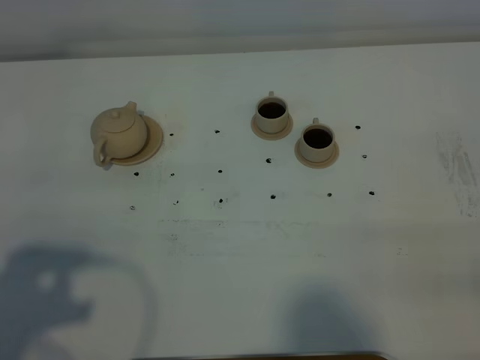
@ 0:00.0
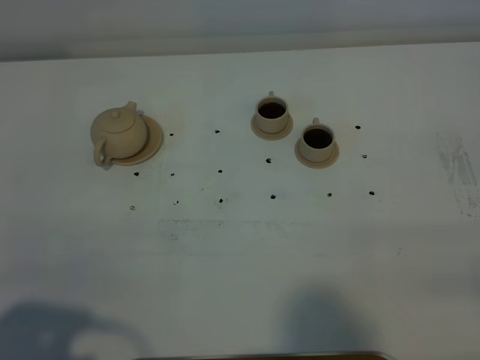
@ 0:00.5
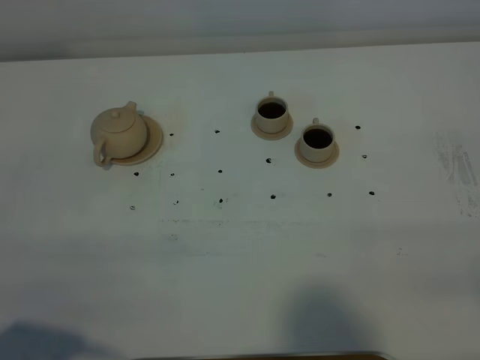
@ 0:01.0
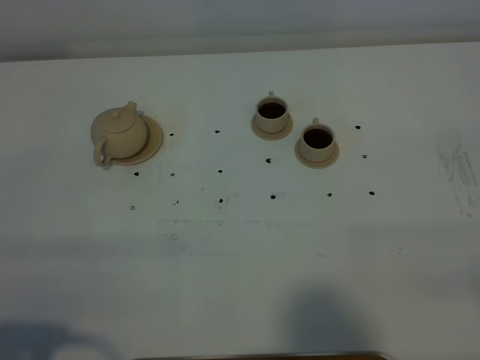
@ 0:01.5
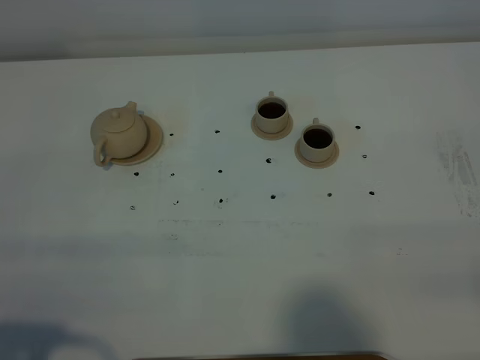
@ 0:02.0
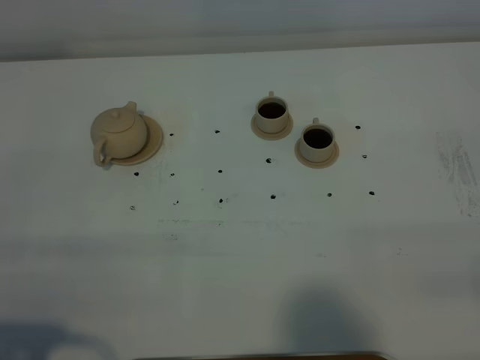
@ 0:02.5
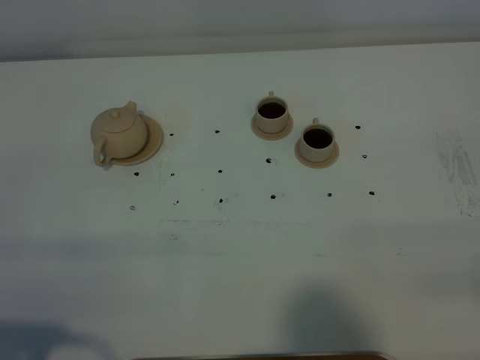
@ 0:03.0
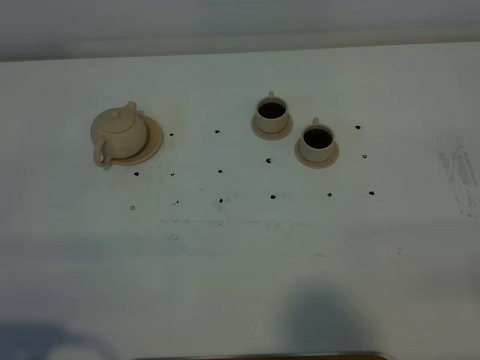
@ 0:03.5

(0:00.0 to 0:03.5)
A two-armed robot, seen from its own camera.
Task of the whole recording: grasp the brown teapot and pour the tea into the two brown teacups one by one, put the brown teapot back in its original place.
0:00.0 - 0:02.0: The left gripper travels backward and downward by about 10 cm.

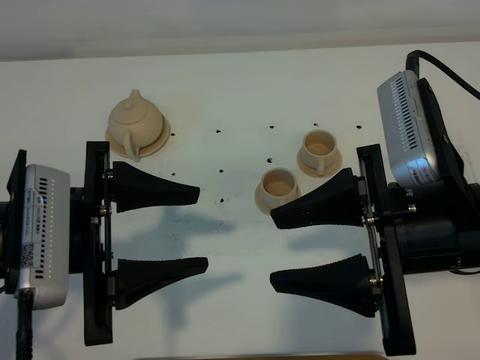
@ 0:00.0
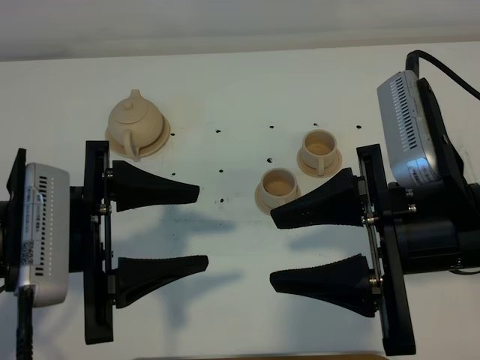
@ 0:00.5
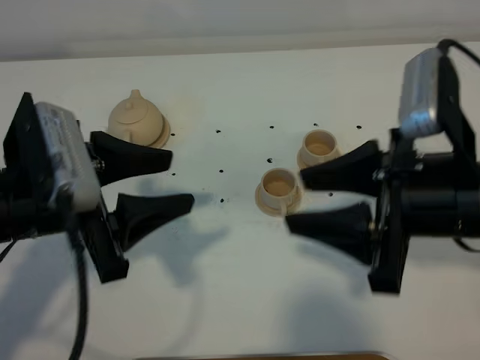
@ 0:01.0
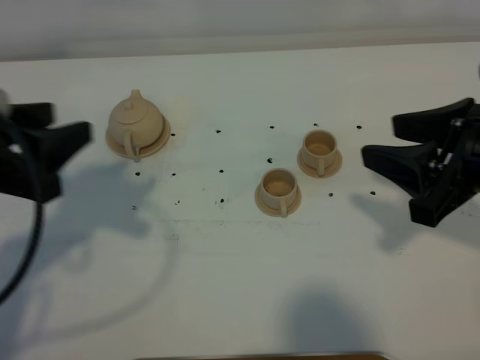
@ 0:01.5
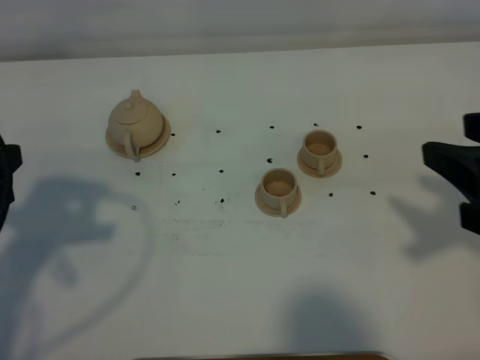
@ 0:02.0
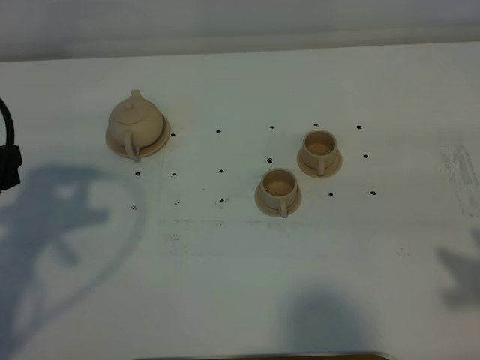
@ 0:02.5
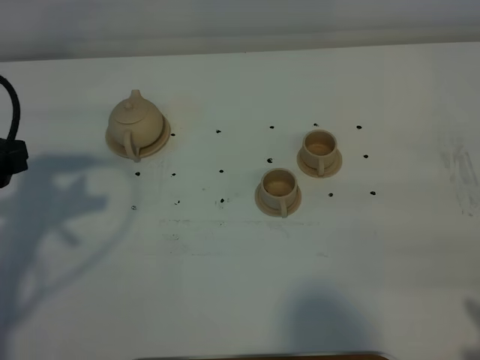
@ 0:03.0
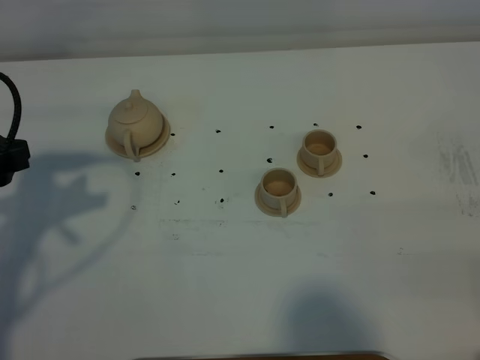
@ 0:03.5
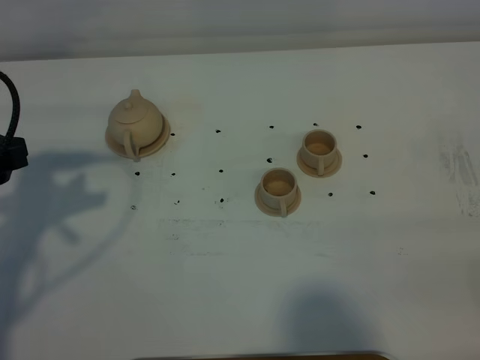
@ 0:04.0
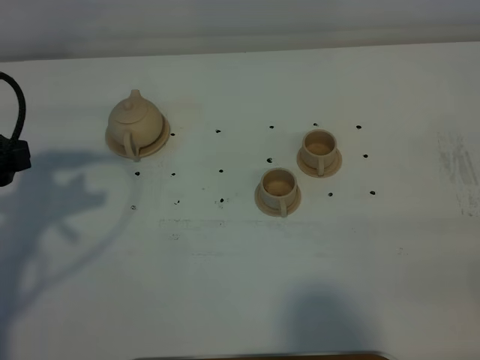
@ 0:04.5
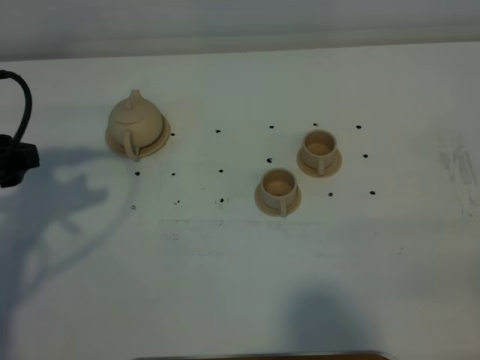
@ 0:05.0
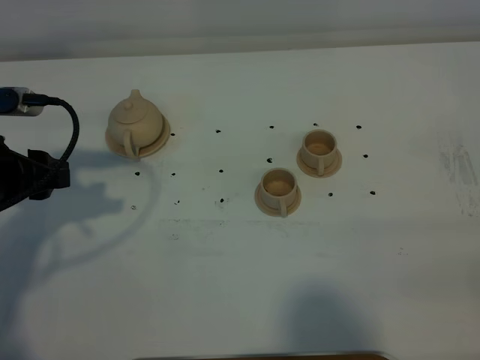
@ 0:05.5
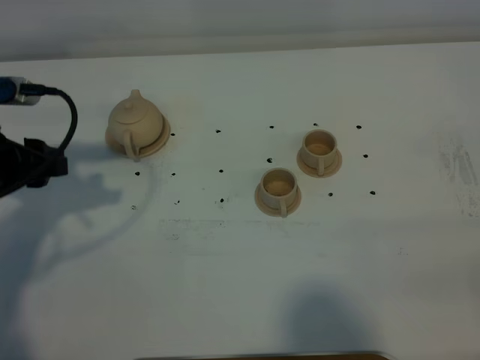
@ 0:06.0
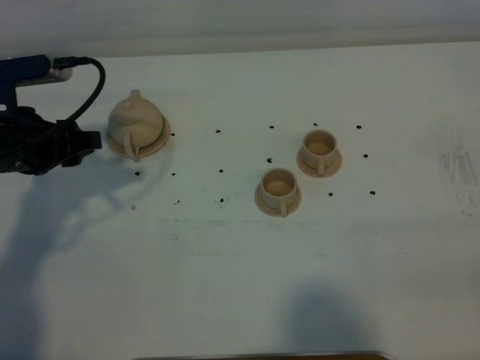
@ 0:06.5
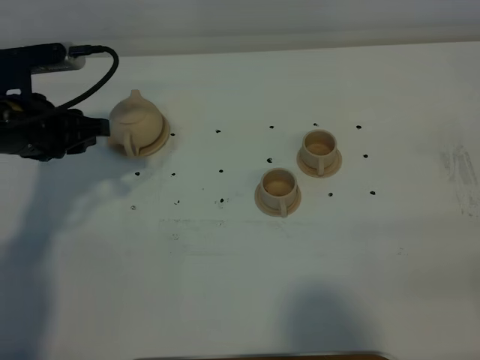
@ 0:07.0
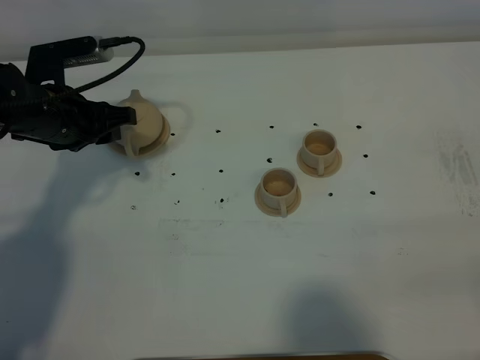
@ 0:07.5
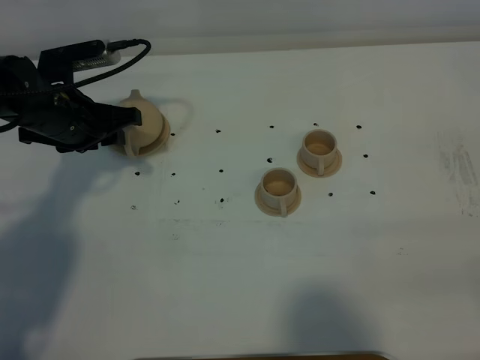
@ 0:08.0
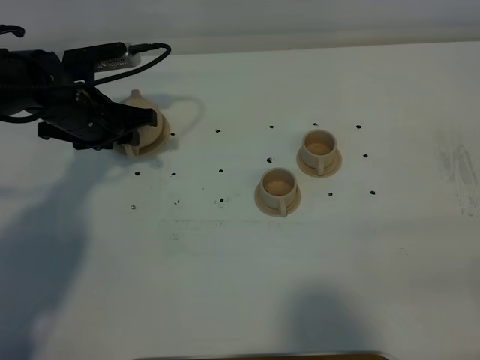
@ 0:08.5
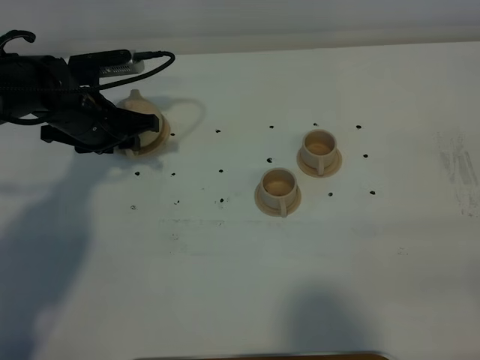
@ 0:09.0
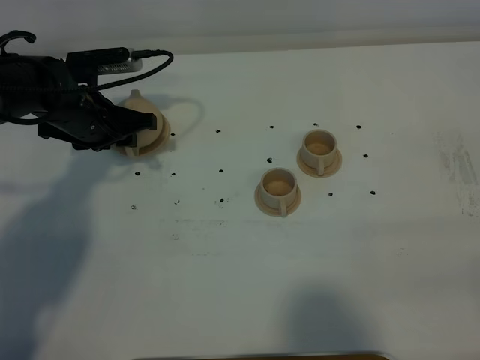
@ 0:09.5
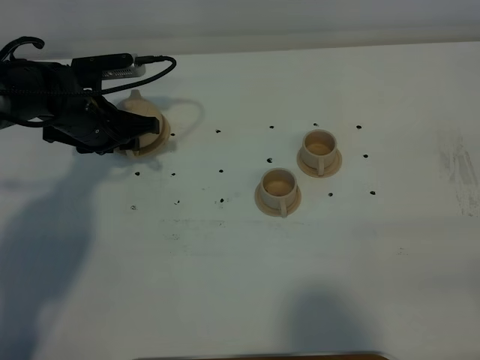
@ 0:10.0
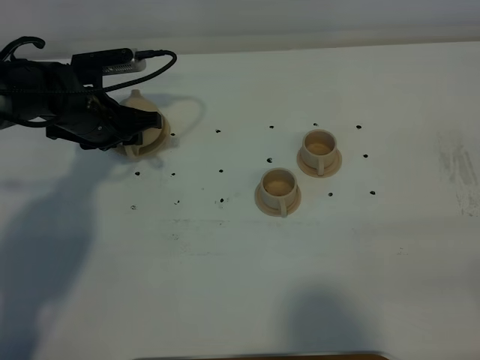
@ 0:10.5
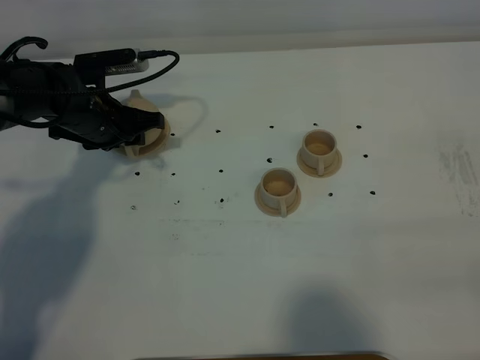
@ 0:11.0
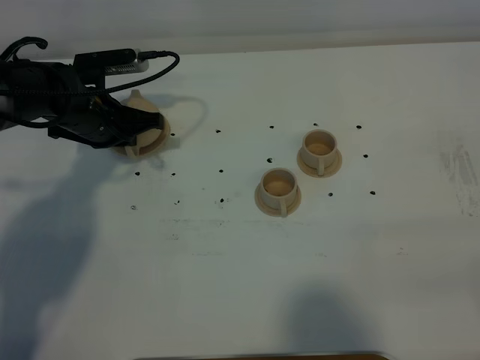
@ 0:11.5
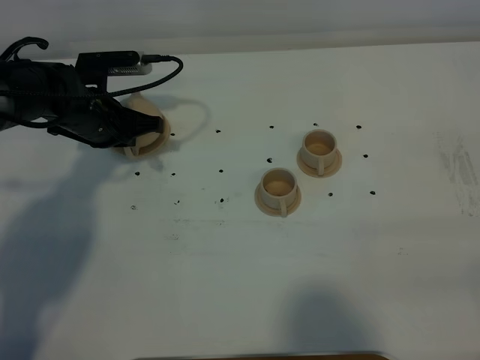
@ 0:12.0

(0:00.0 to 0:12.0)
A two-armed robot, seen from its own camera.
Task of the whole recording: grasp the brown teapot and pour the tea into the two brown teacups one by one, put the brown teapot back in its original place.
0:00.0 - 0:02.0: The right gripper travels to the right by roughly 10 cm. Meanwhile the left gripper is displaced to the left by about 10 cm.
0:02.0 - 0:04.0: The left gripper is displaced forward by about 5 cm. Meanwhile the right gripper heads backward, covering about 15 cm.
0:04.0 - 0:06.0: The left gripper moves about 5 cm.
0:06.0 - 0:08.0: The left gripper is displaced forward and to the right by some 15 cm.
0:08.0 - 0:10.0: The grippers stay close to where they were, moving slightly.
0:10.0 - 0:12.0: The left gripper closes.

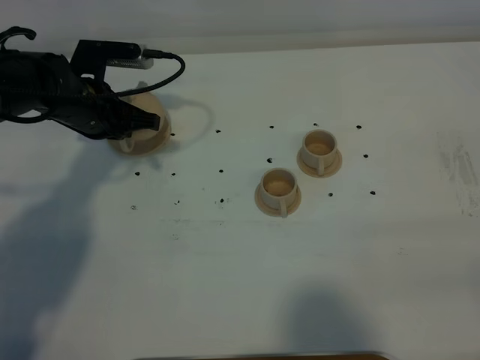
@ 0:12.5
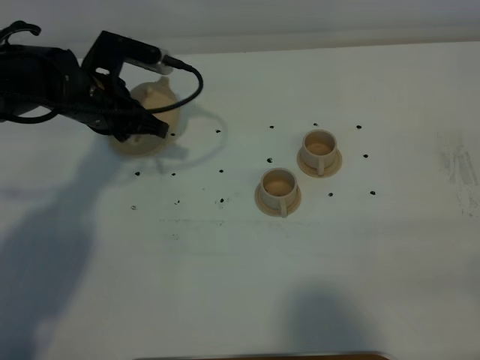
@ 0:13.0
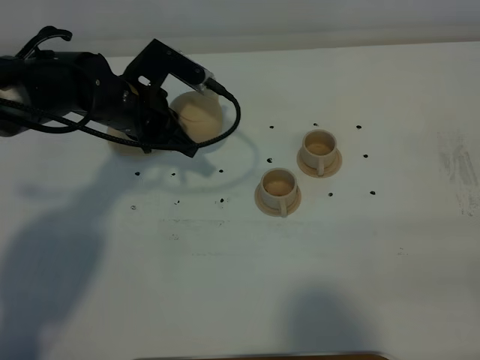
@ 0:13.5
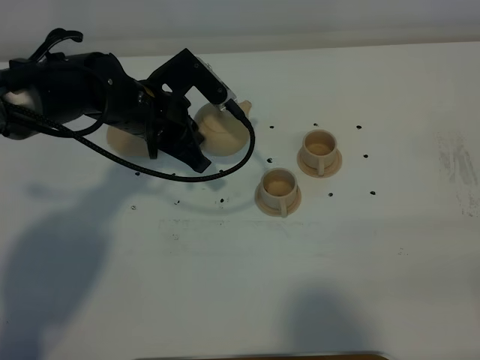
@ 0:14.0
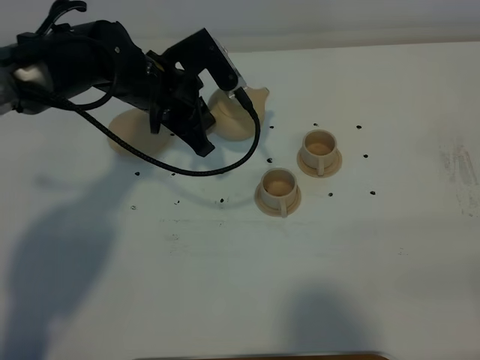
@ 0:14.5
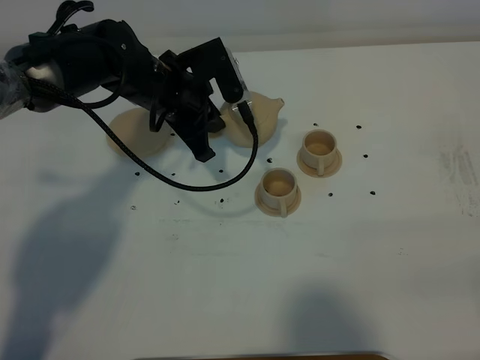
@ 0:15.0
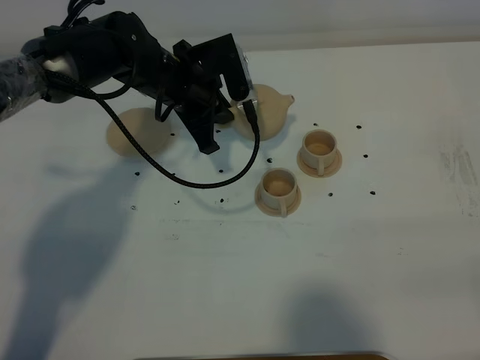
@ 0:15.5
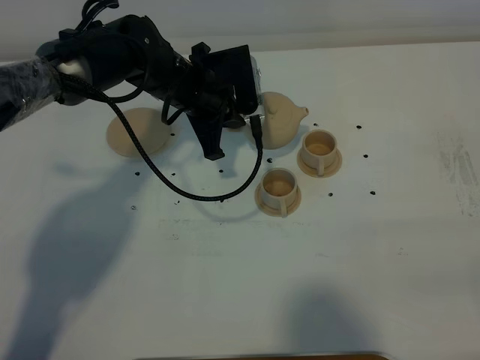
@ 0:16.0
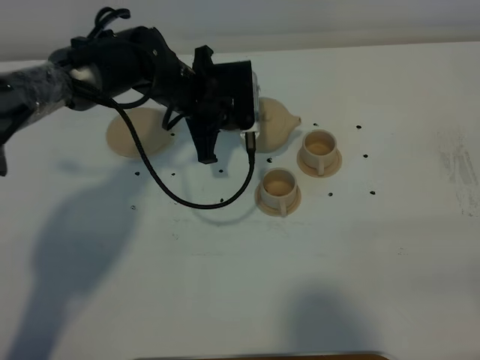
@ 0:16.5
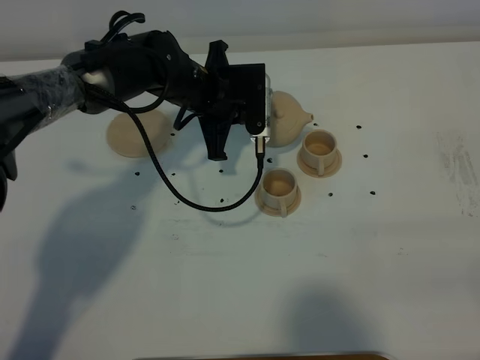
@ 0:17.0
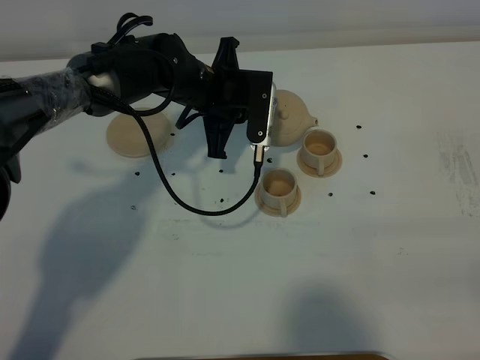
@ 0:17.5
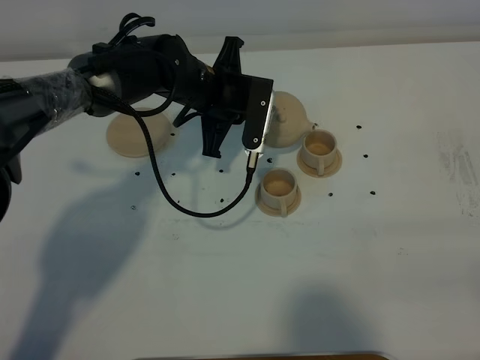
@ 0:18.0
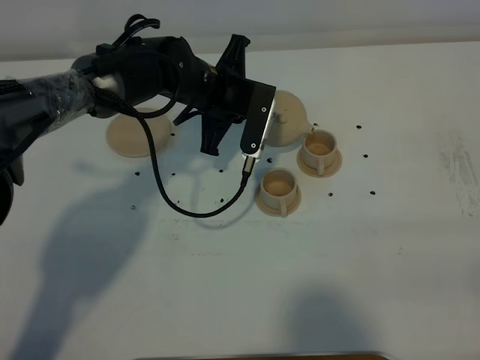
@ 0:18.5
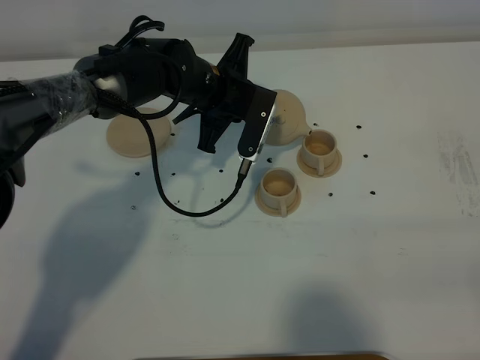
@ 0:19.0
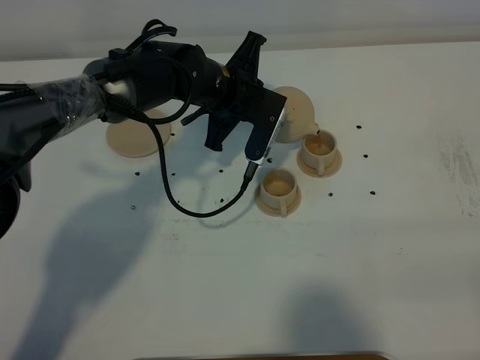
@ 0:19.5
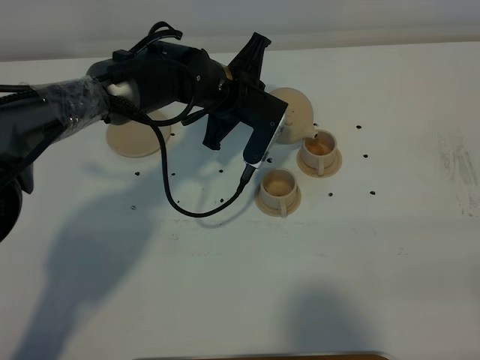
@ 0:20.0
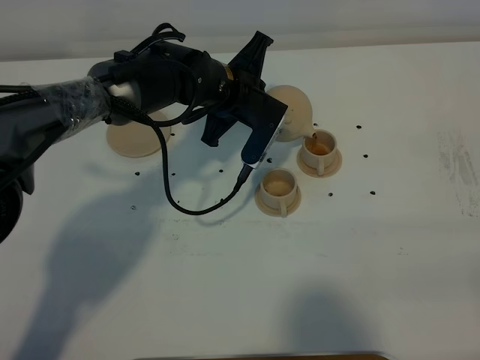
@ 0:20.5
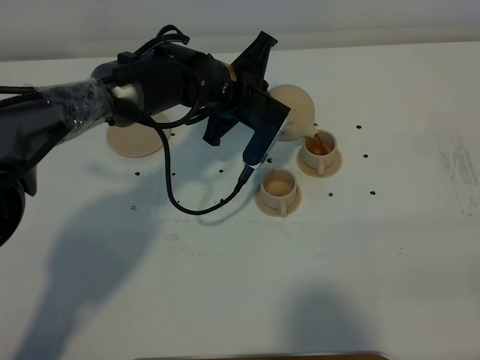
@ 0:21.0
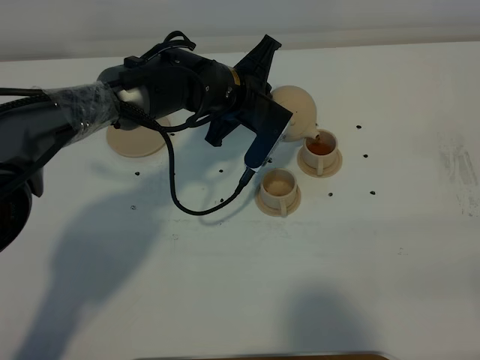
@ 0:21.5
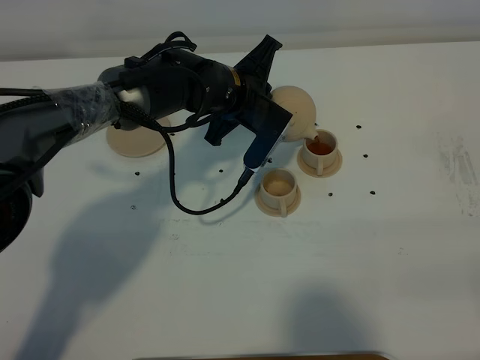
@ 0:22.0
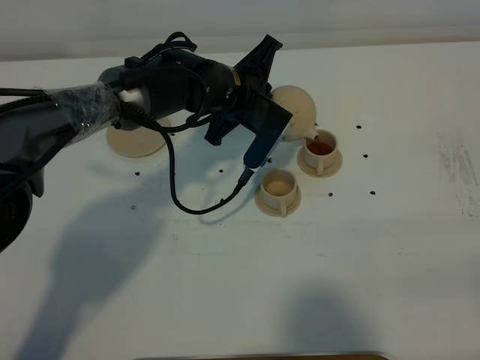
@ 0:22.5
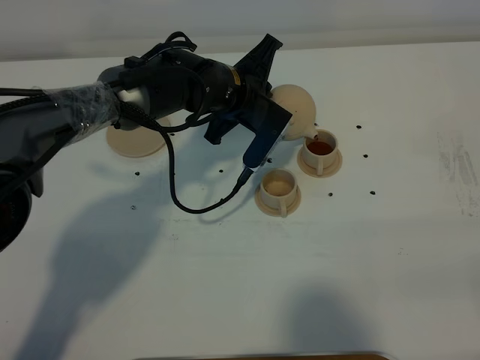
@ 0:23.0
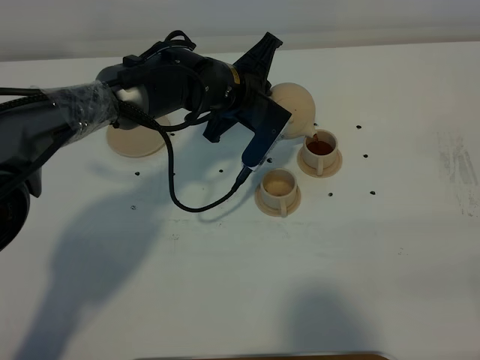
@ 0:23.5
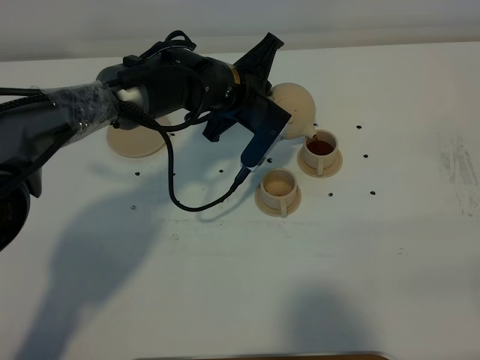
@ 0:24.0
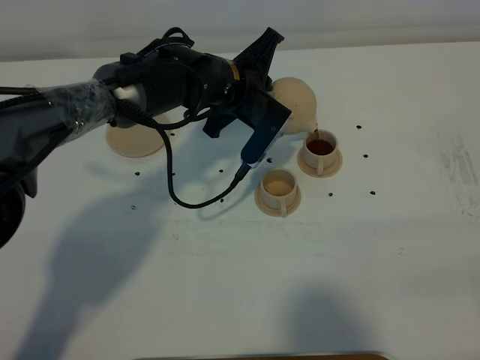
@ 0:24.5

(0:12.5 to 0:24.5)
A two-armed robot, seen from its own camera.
Task of the whole recording: grasp the brown teapot and pour the tea into the two brown teacups one by one, put the brown teapot back in its original place.
0:12.5 - 0:14.5: The left gripper moves to the right, some 10 cm.
0:18.5 - 0:20.5: There are only small adjustments of the grippers.
0:20.5 - 0:22.5: The grippers stay close to where they were, moving slightly.
0:22.5 - 0:24.5: Both grippers stay put.
